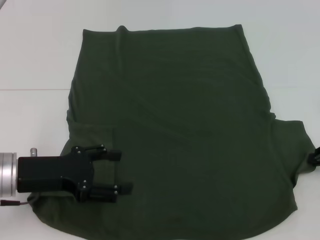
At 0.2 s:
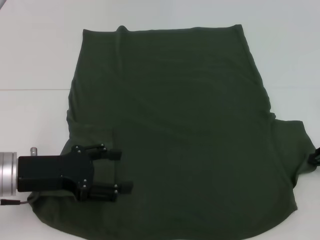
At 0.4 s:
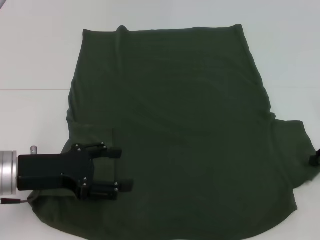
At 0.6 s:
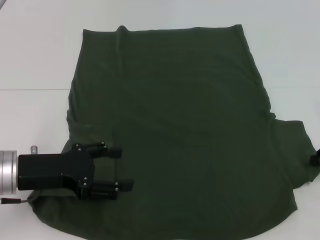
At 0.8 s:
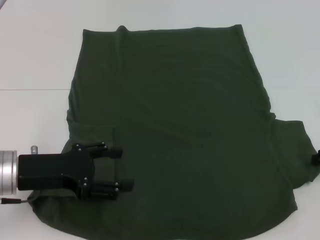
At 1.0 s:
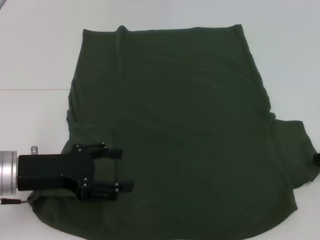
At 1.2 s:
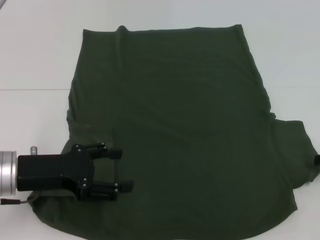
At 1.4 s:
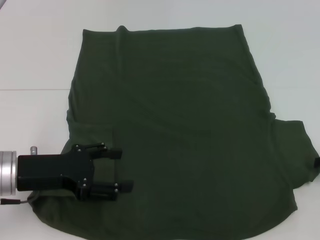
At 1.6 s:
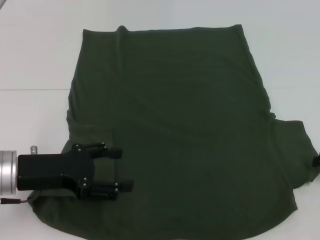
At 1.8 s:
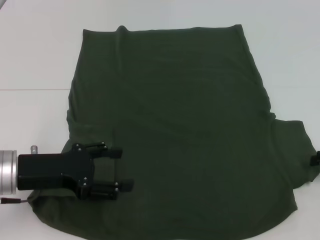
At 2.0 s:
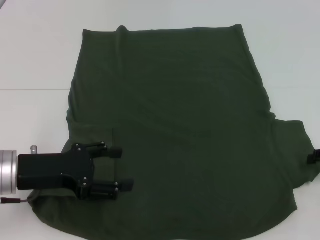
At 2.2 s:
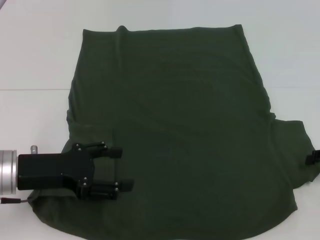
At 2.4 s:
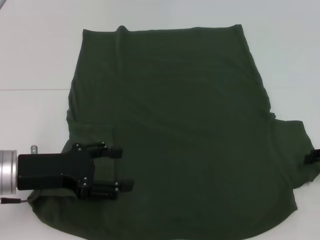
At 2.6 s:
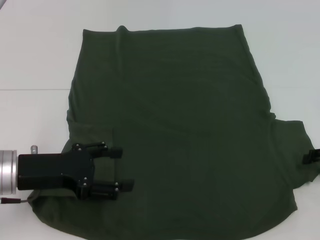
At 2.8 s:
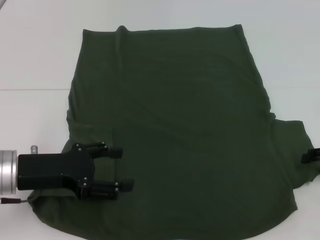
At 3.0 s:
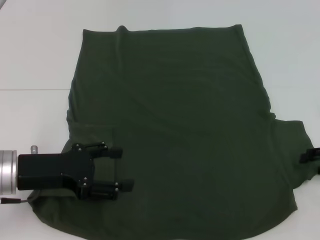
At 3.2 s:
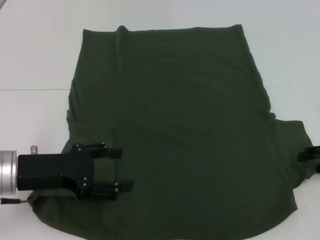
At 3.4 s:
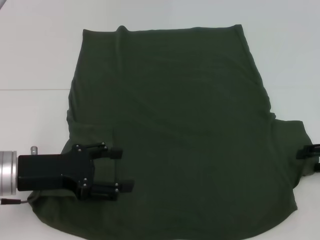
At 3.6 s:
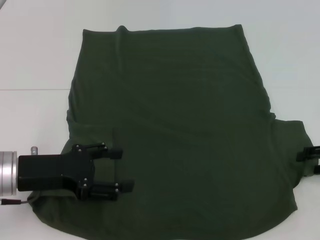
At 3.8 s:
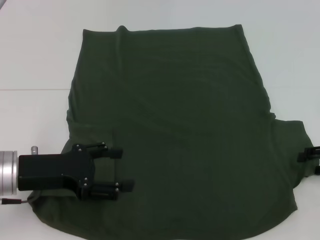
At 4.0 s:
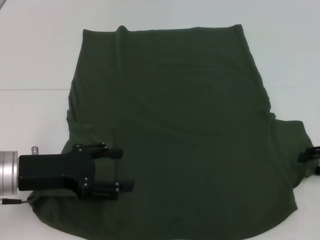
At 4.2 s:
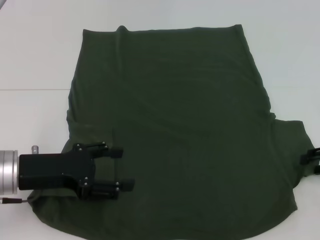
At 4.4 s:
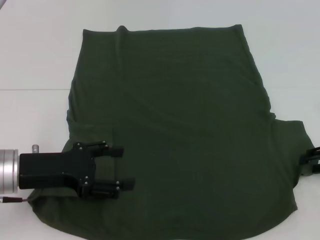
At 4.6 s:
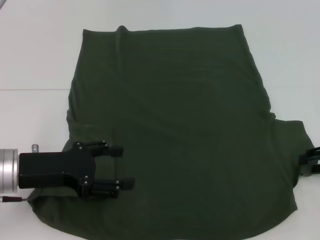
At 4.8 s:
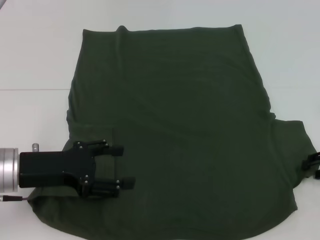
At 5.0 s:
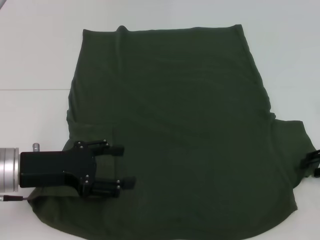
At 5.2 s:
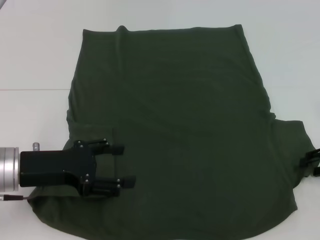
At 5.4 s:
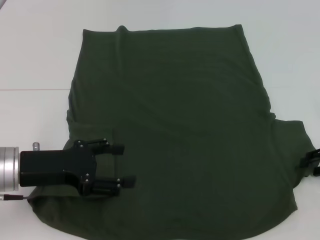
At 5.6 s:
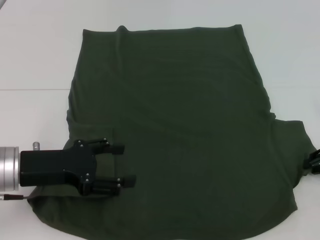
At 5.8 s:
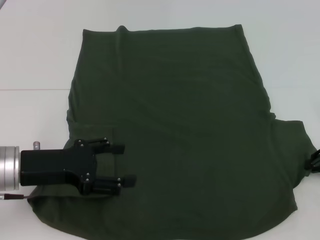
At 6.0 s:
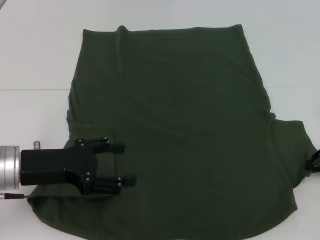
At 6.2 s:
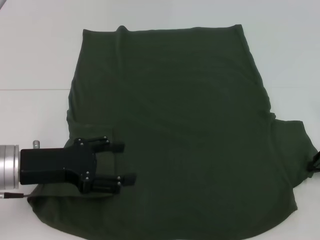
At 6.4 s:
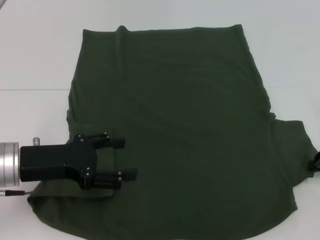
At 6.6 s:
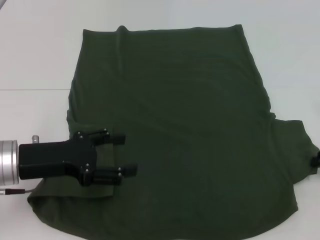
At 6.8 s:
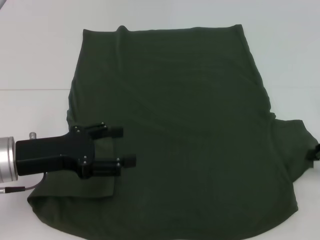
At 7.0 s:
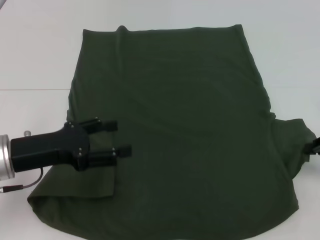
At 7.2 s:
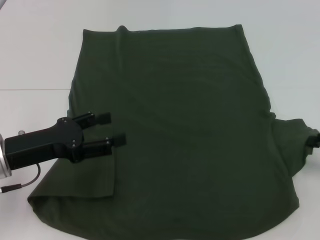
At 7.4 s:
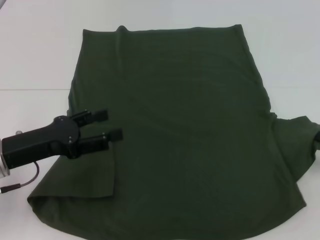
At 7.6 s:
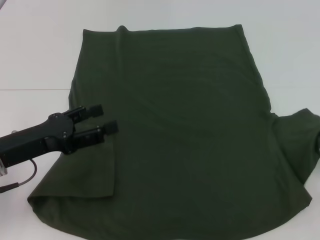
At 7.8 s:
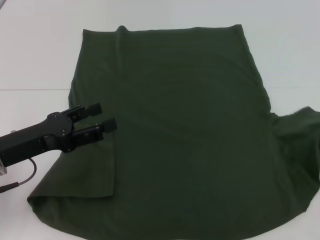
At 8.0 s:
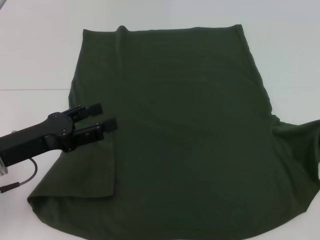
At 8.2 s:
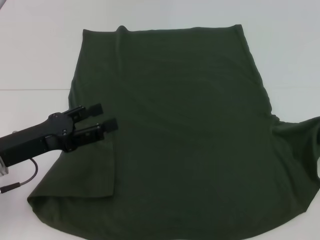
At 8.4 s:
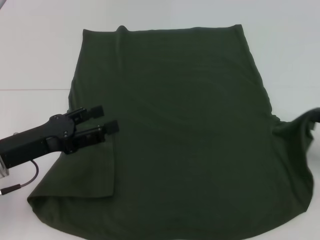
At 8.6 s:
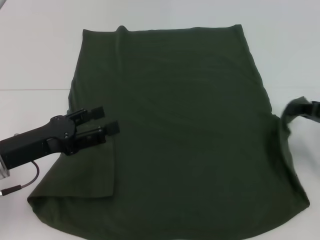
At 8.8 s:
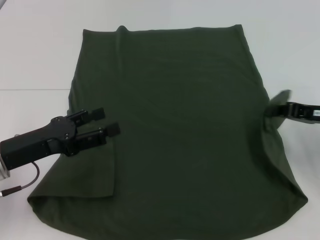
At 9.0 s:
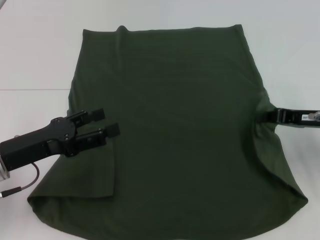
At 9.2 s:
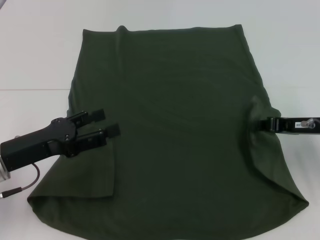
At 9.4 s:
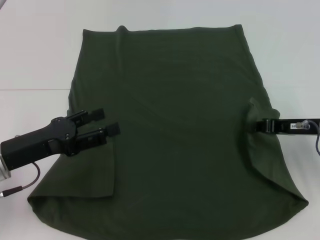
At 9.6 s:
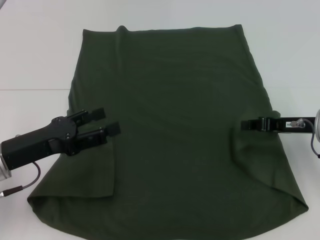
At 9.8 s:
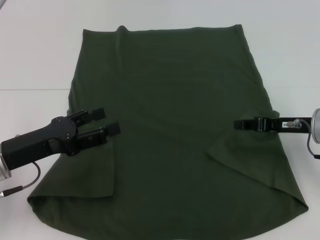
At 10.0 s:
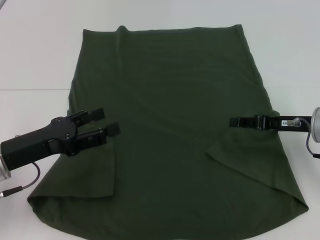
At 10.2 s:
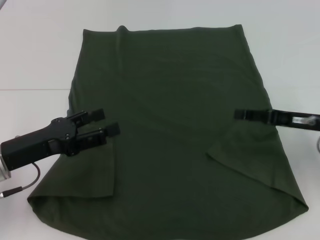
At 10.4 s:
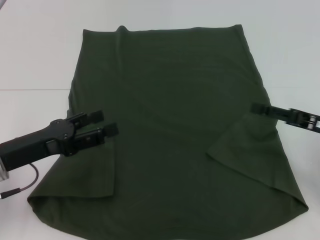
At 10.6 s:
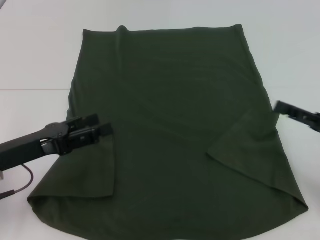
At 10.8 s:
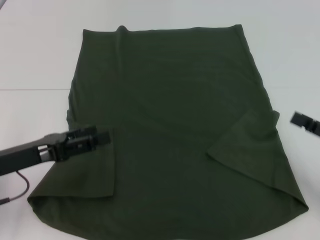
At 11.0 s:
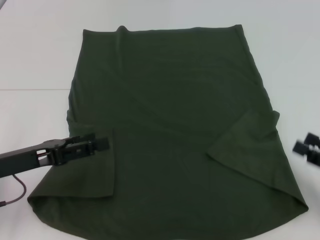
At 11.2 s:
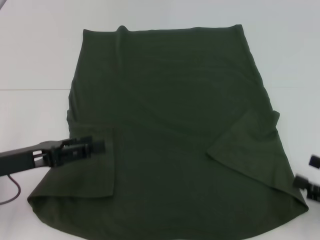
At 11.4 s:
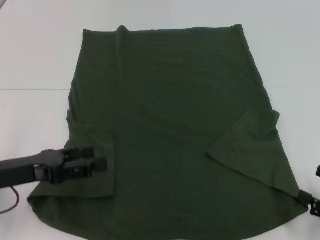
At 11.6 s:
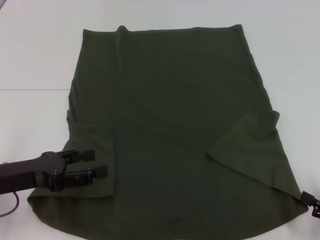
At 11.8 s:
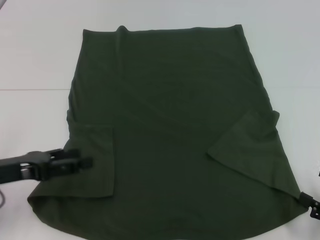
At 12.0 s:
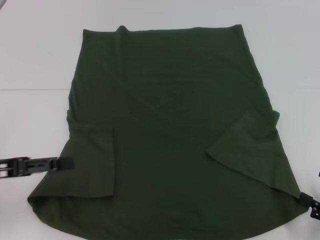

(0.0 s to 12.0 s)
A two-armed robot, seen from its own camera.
Step, 0.0 s - 9.6 s: Fold the bottom right sleeve with your right hand.
0.0 s - 1.6 s: The grippers move only a little.
3.0 s - 4.4 s: The two grippers keep their place.
7.6 s - 9.0 s: The right gripper shifts some 10 cm to the left and forward.
9.0 s - 10.4 s: The right gripper opens its fingers.
10.4 s - 12.0 s: The right gripper is displaced backward and downward by about 15 cm; the left gripper is displaced to the left by about 5 cm.

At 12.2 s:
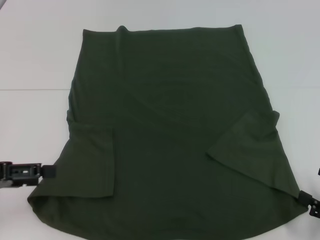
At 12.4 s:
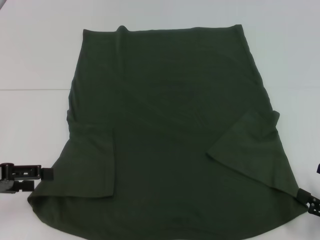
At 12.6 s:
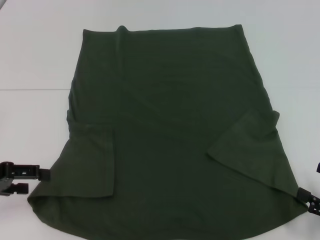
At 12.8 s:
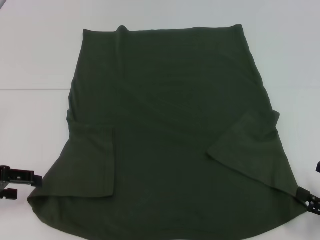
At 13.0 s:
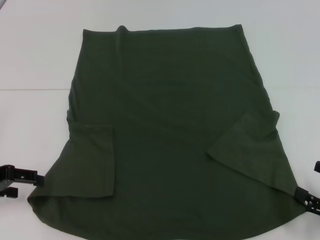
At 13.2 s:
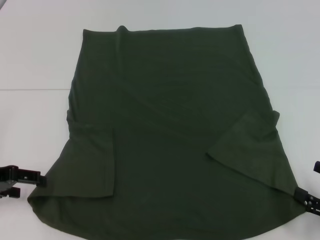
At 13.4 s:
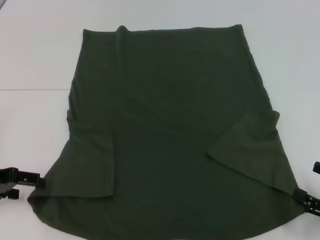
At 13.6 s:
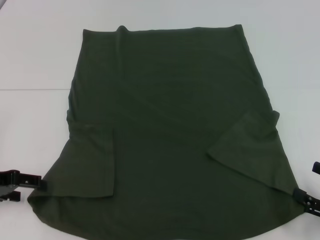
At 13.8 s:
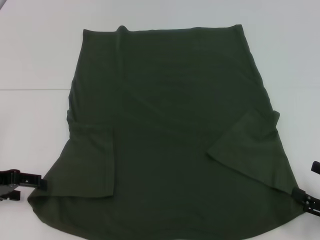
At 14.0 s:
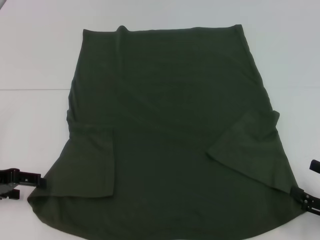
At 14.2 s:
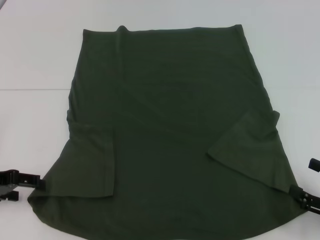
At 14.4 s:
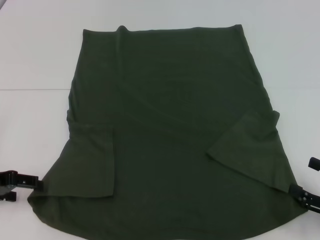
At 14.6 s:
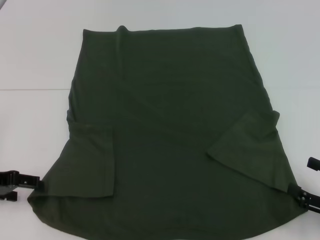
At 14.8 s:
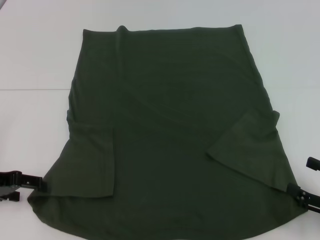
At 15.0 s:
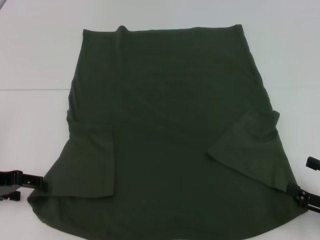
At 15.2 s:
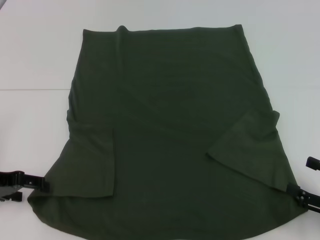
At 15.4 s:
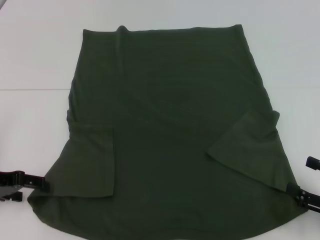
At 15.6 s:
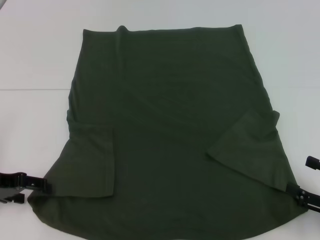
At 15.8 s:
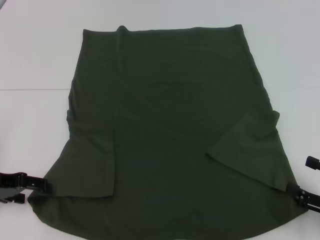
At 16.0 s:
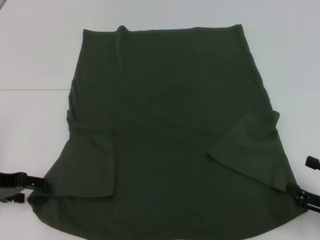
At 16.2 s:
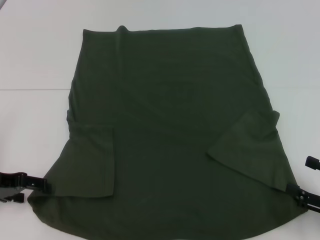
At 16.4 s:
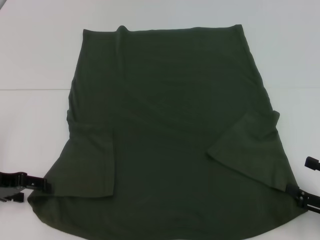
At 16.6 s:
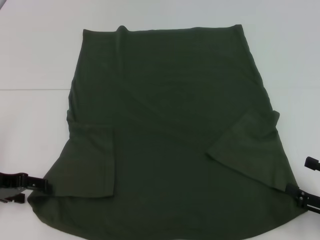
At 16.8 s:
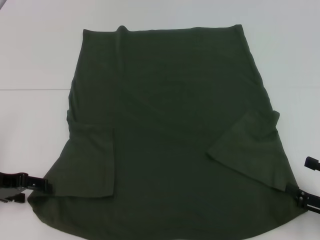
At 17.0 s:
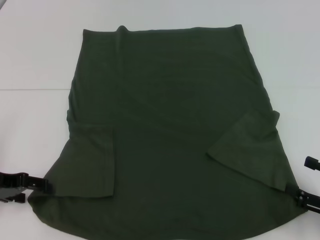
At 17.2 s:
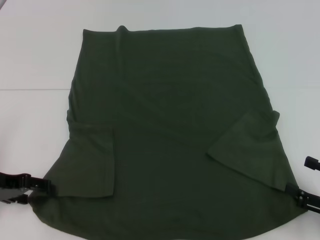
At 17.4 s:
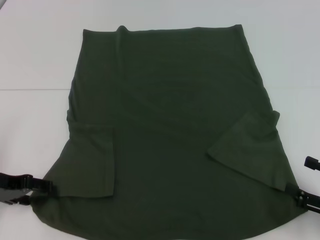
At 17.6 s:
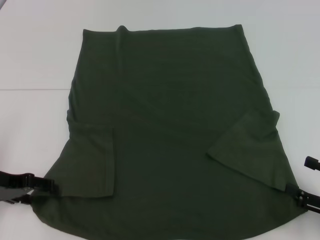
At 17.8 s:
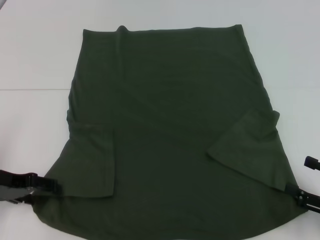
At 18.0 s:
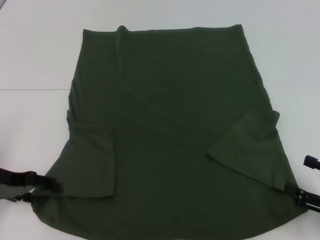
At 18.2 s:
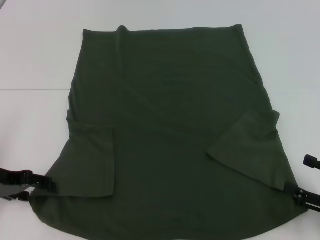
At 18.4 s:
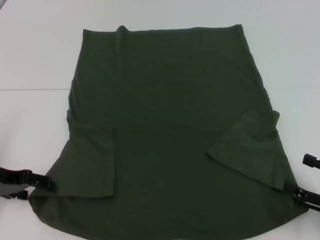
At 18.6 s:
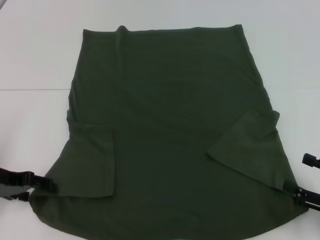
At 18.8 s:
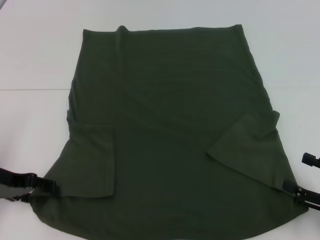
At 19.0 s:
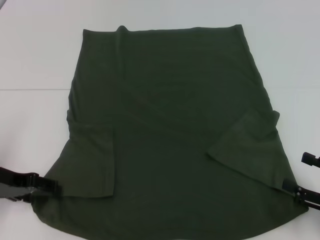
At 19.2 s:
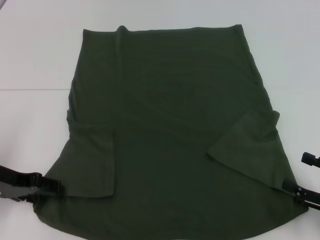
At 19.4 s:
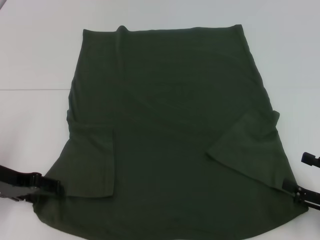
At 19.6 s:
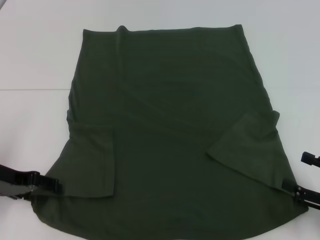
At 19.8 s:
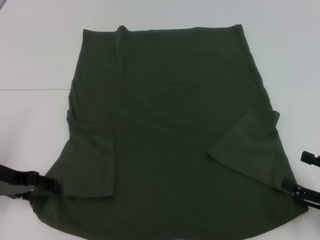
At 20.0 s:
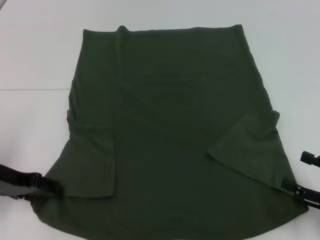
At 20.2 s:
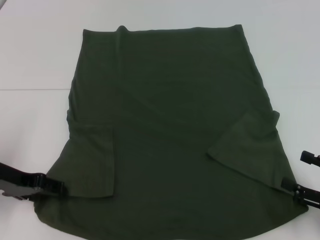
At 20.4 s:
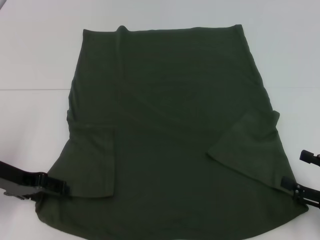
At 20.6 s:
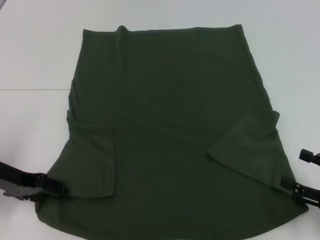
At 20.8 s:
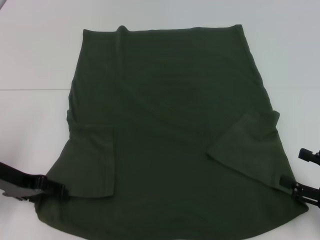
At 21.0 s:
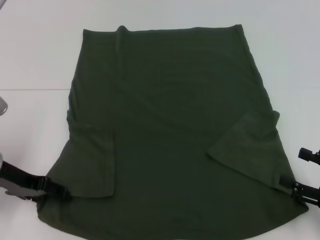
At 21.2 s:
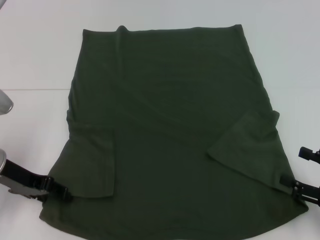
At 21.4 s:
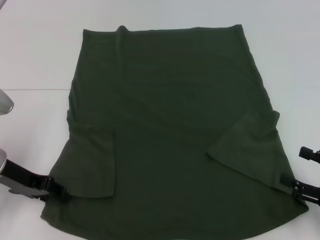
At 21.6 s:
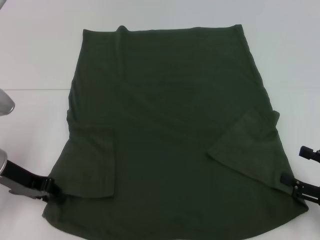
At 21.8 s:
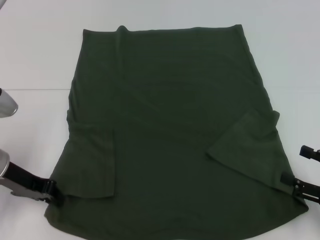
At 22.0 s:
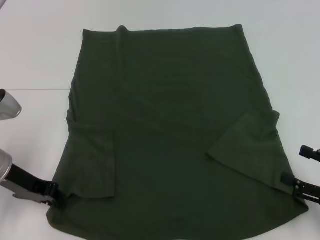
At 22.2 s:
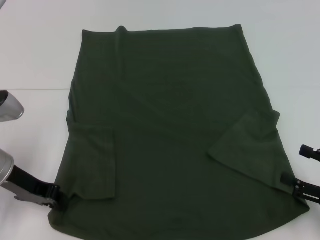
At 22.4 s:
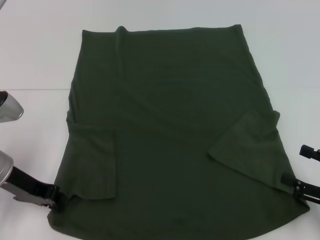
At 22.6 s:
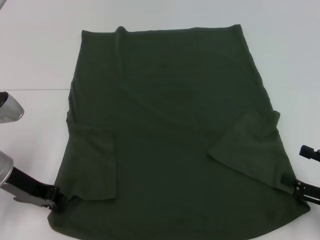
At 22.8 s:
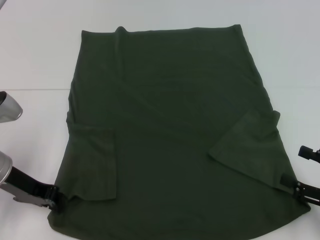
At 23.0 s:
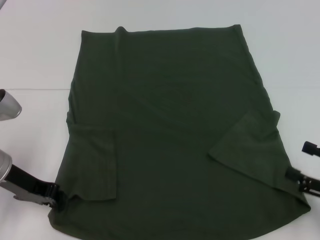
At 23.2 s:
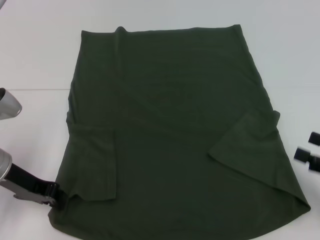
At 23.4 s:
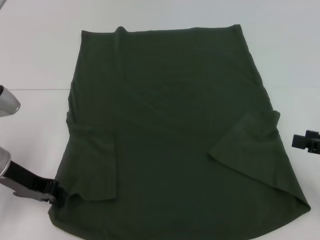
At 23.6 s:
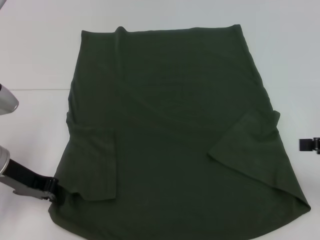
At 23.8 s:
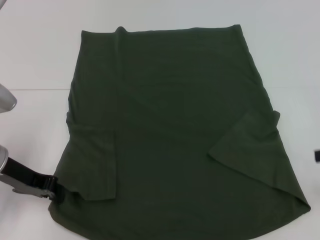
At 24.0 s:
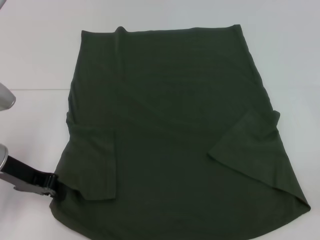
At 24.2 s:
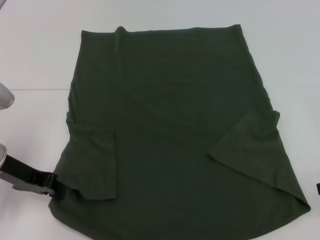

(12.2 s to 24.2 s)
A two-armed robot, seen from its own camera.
Step, 12.2 s - 21.8 s: Grab the bottom left corner with your left hand.
12.2 s - 13.8 s: The left gripper shifts by some 5 cm.
13.8 s - 15.2 s: Both grippers stay put.
15.2 s - 16.6 s: Both grippers stay put.
16.6 s - 18.2 s: Both grippers stay put.
18.2 s - 21.2 s: The grippers stay close to where they were, moving slightly.
21.2 s - 22.6 s: The left gripper closes up.
22.6 s - 24.2 s: The right gripper travels upward and forward by about 10 cm.
